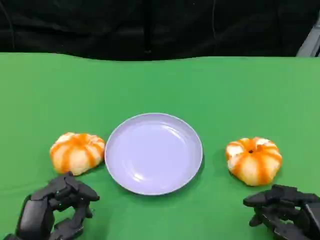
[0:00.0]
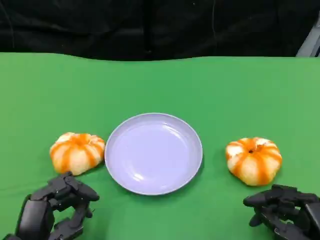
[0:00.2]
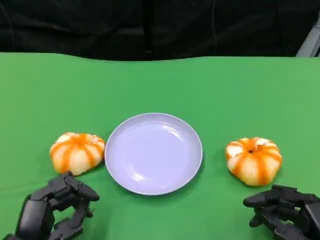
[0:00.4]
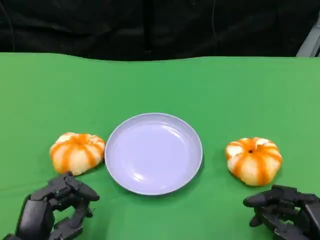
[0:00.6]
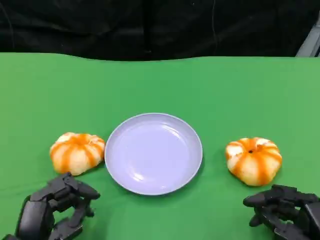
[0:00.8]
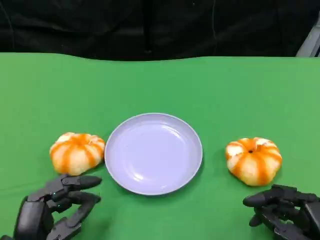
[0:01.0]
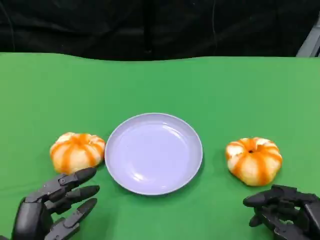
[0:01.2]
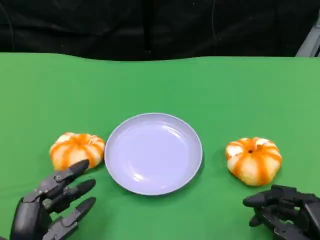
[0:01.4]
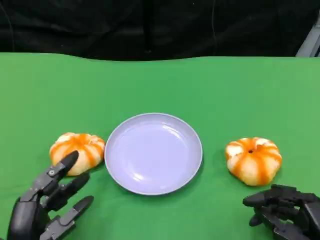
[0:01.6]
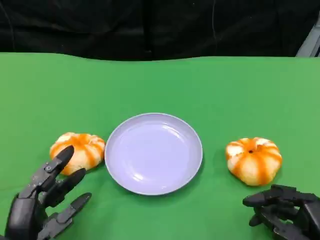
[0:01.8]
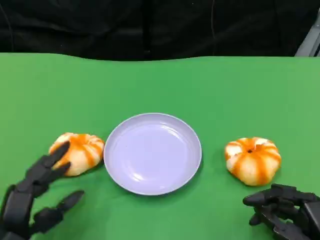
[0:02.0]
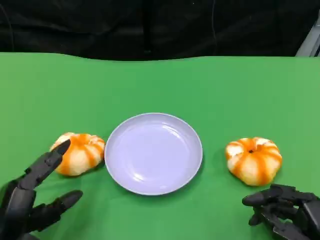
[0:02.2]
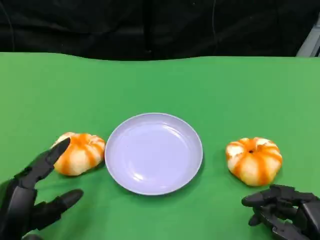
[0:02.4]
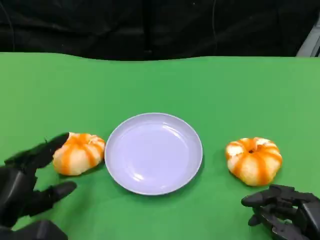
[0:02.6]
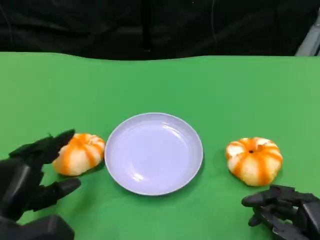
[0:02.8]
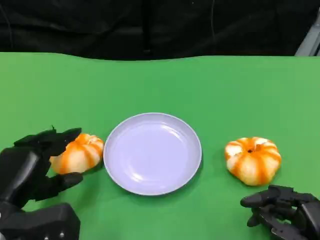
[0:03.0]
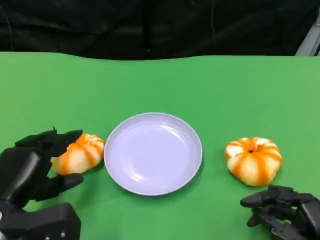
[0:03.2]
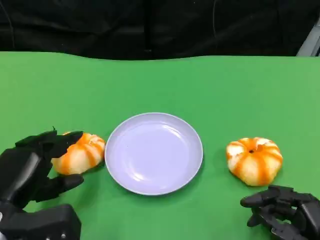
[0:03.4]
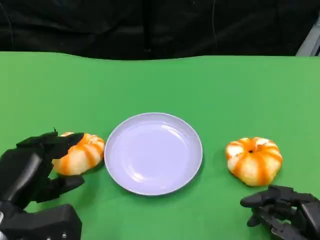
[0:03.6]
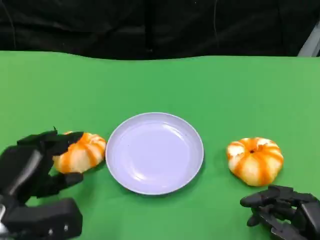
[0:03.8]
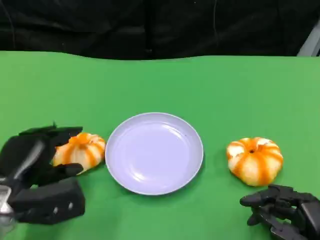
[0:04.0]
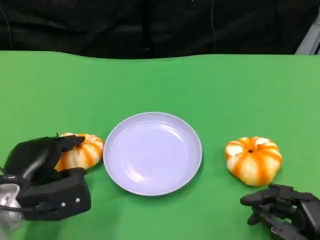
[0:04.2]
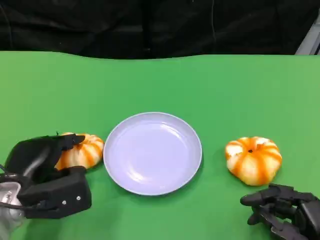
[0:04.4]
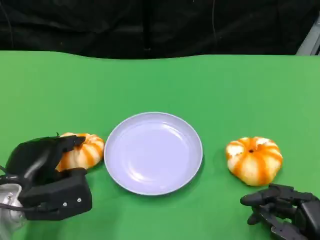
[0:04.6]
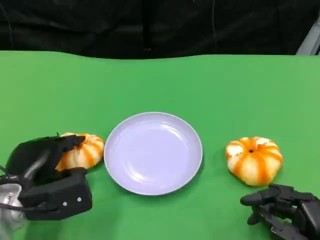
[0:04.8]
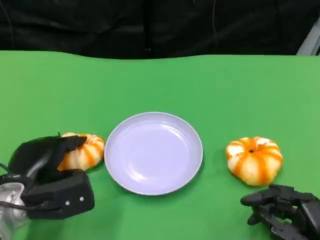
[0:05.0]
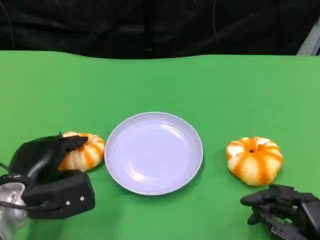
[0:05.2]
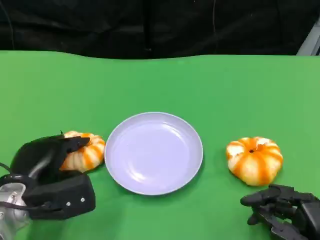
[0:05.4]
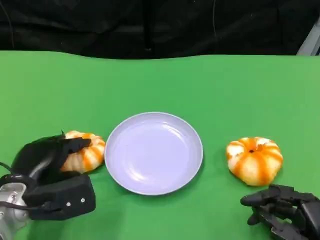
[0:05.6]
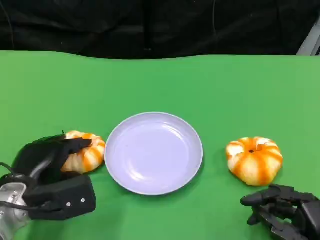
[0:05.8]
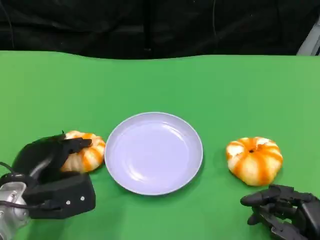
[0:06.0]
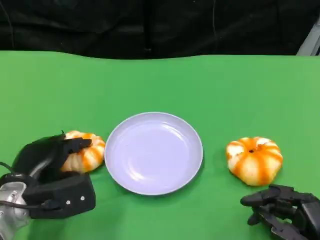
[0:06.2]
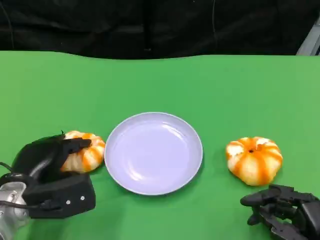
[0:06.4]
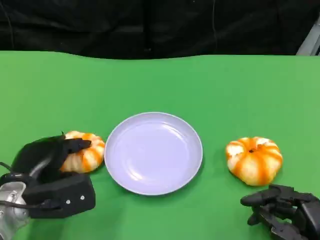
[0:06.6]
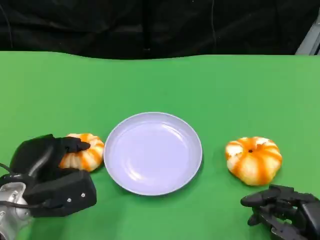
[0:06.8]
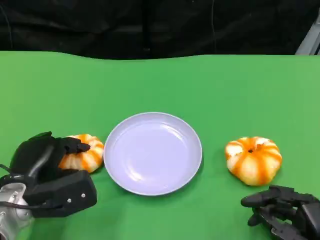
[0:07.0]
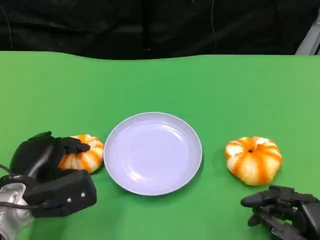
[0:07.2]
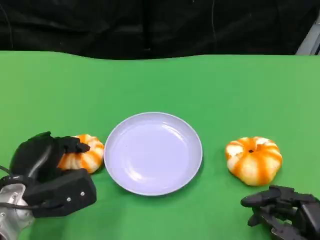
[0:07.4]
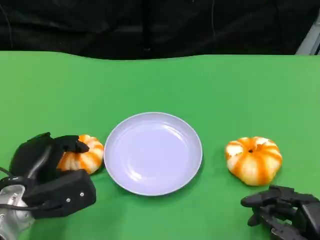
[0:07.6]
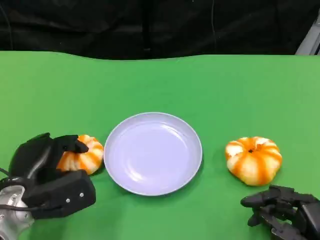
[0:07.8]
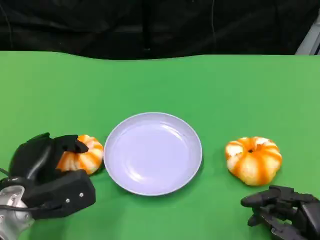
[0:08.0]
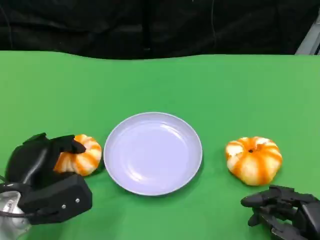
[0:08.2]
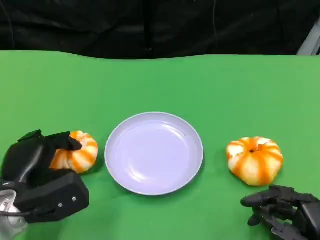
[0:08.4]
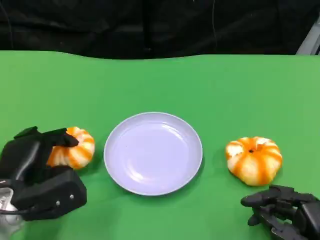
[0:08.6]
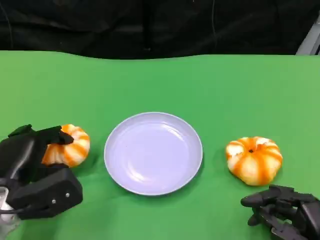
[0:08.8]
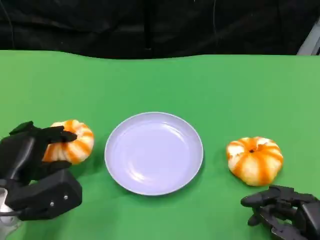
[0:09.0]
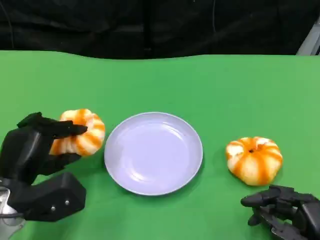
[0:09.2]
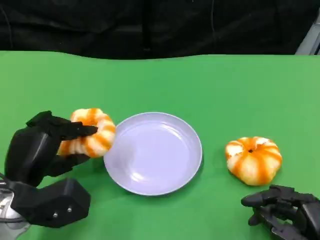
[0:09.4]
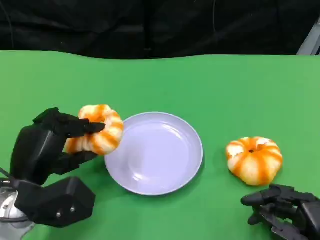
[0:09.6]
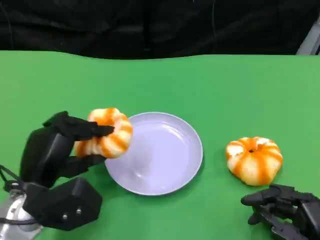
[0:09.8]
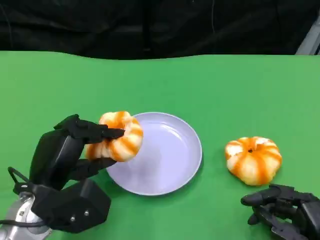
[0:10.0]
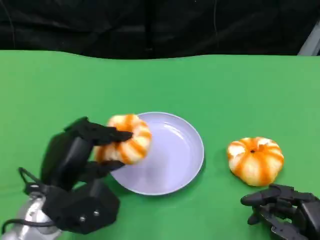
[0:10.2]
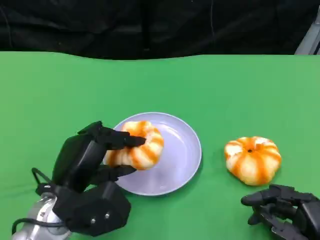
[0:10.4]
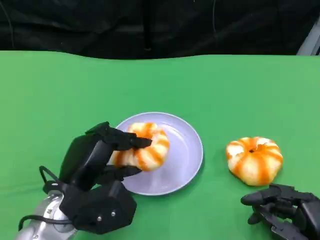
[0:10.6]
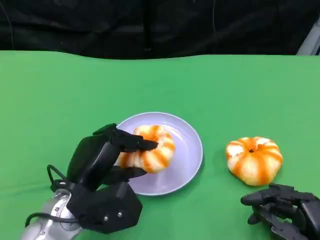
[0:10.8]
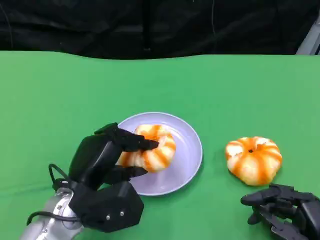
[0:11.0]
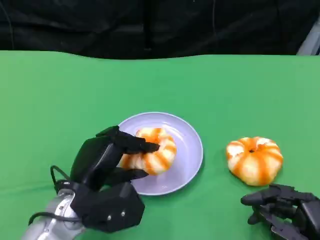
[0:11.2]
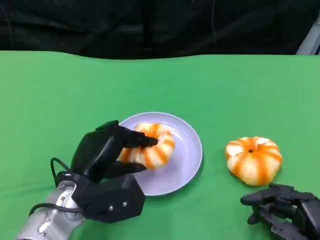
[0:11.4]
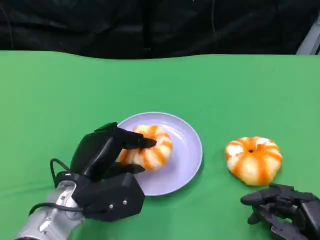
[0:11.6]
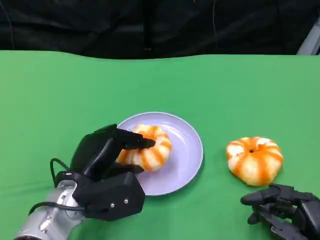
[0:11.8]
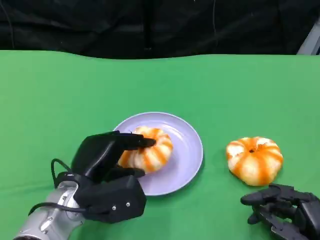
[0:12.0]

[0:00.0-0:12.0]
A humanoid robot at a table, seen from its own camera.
Task of the whole recording: Grasp the bread from the table and place it into the plate.
0:00.0 to 0:01.6: The hands move only a little.
0:01.6 to 0:03.0: The left hand heads forward, covering roughly 5 cm.
0:03.0 to 0:04.4: The hands make only small movements.
0:04.4 to 0:06.0: The two hands keep their place.
0:06.0 to 0:07.6: The hands move only a little.
0:07.6 to 0:09.0: The hands stay close to where they were, moving slightly.
0:09.0 to 0:10.4: The left hand moves to the right, approximately 5 cm.
0:10.4 to 0:12.0: There are only small adjustments of the hands.

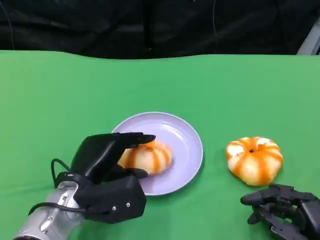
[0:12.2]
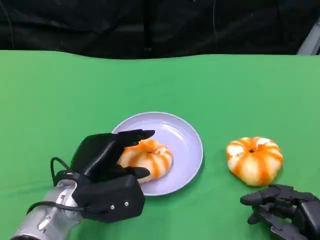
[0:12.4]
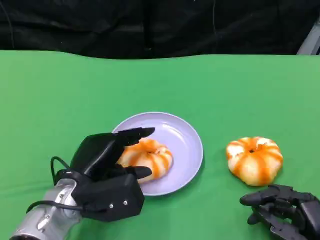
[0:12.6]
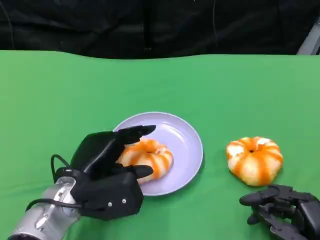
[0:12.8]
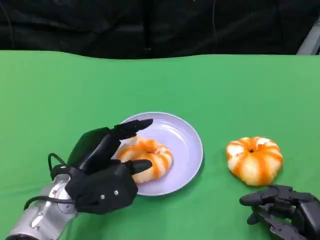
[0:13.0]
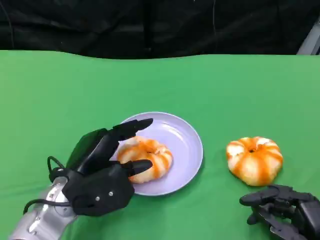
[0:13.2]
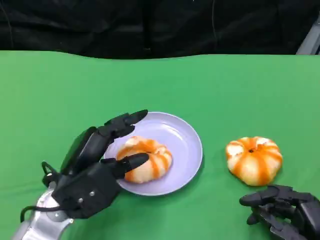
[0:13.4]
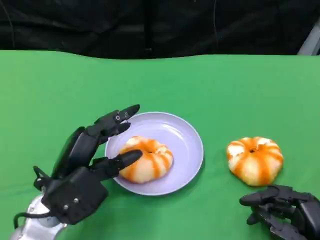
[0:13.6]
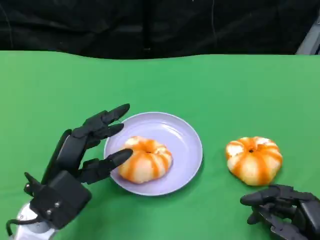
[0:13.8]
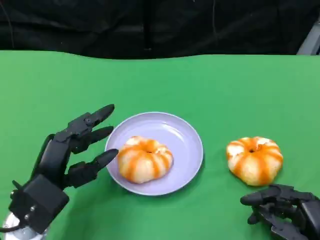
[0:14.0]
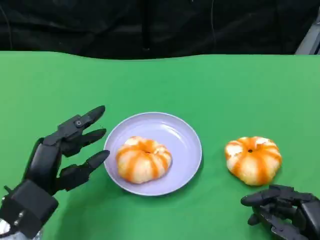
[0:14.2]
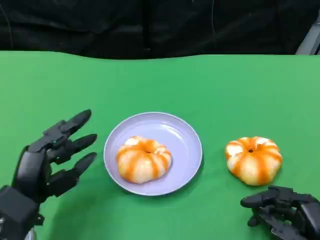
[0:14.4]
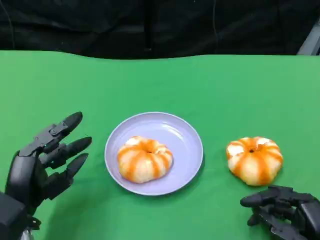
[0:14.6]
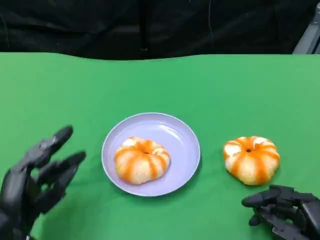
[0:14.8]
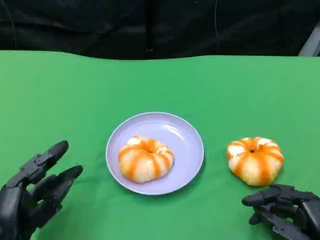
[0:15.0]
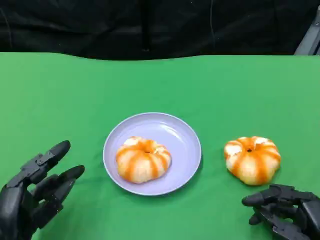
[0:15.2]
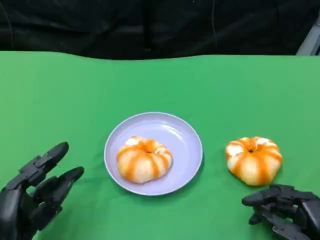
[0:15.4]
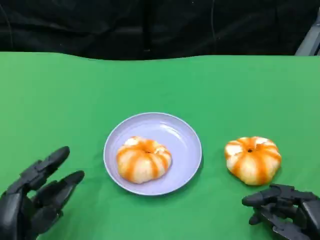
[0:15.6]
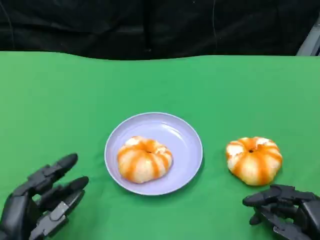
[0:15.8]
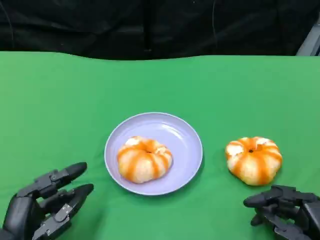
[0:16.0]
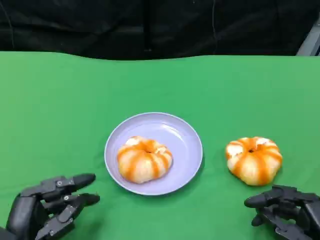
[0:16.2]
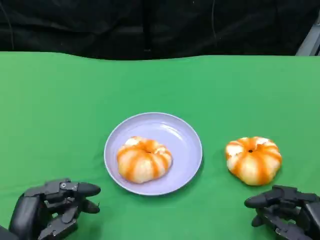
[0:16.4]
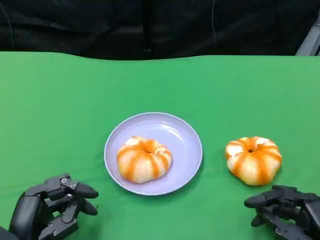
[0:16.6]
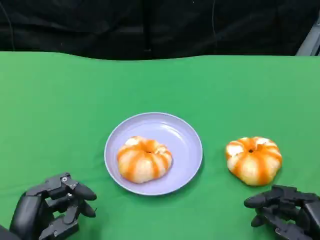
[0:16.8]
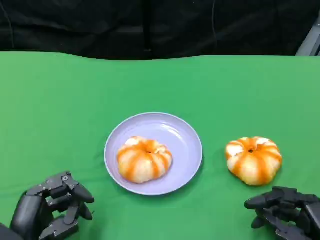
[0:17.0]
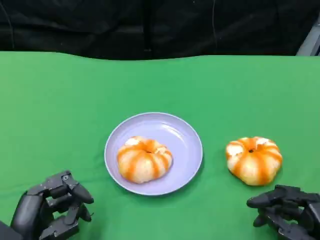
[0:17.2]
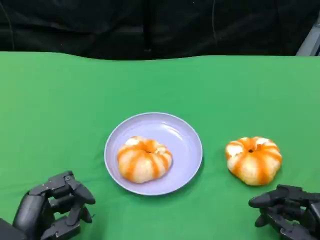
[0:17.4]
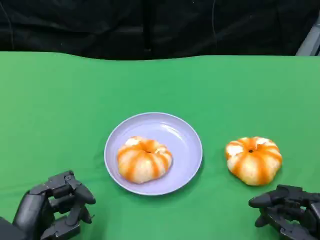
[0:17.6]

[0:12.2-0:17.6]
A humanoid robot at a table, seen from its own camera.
Task of the whole recording: Grasp the bread from the table and place it into the plate.
0:13.6 to 0:15.0: The left hand shifts roughly 10 cm backward and to the left.
0:15.0 to 0:16.2: There are only small adjustments of the hands.
0:16.2 to 0:17.6: Both hands stay put.

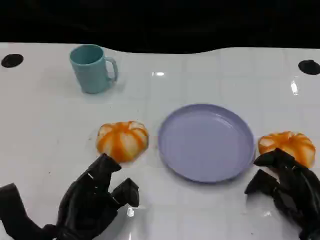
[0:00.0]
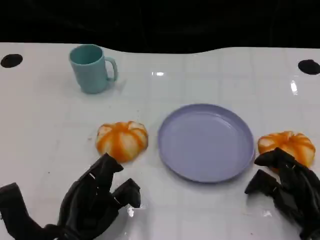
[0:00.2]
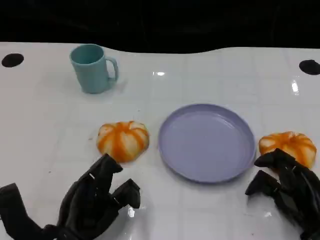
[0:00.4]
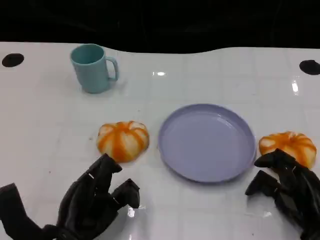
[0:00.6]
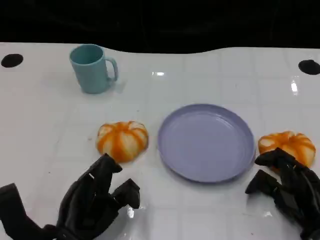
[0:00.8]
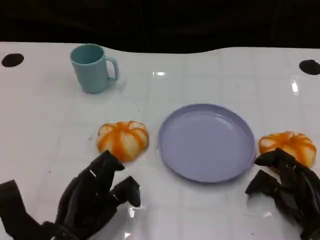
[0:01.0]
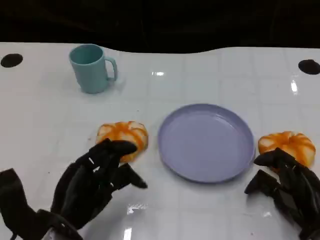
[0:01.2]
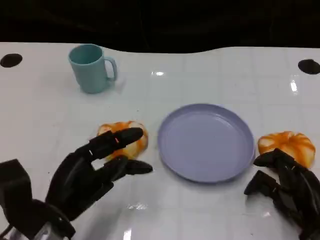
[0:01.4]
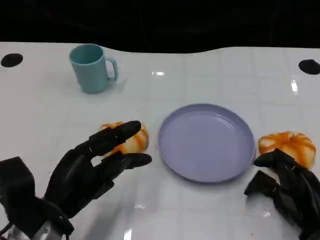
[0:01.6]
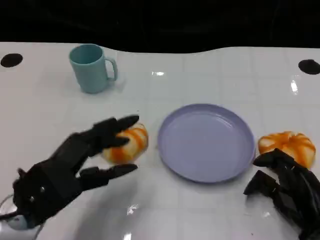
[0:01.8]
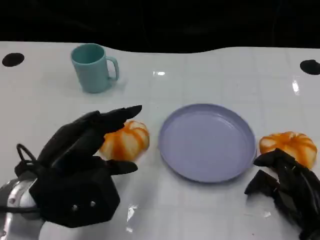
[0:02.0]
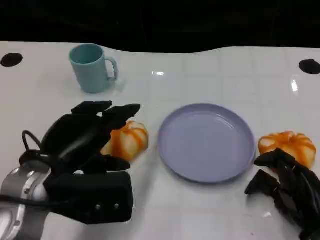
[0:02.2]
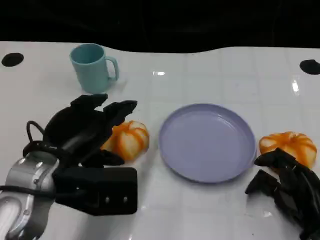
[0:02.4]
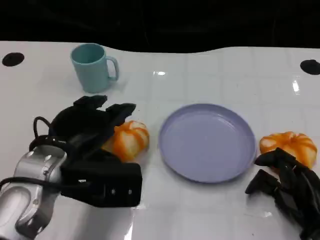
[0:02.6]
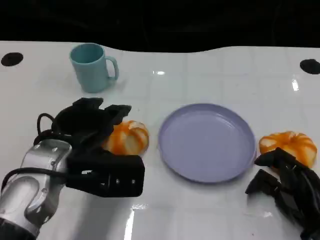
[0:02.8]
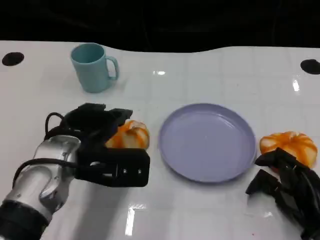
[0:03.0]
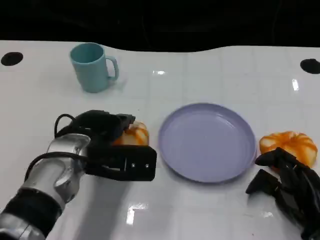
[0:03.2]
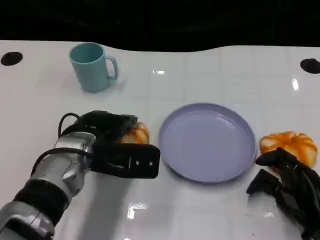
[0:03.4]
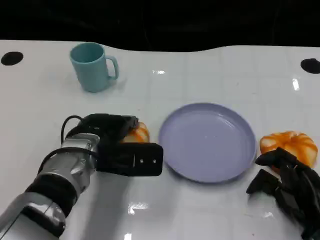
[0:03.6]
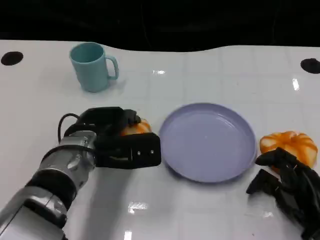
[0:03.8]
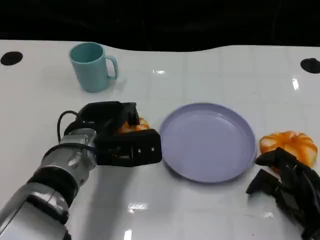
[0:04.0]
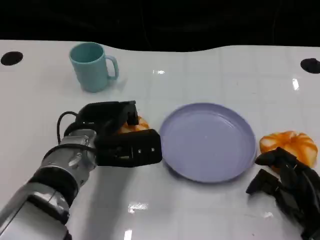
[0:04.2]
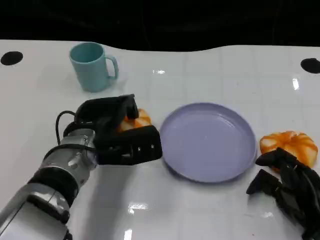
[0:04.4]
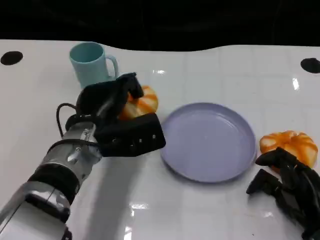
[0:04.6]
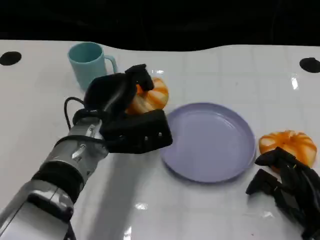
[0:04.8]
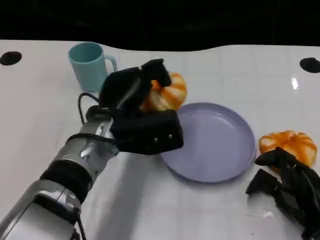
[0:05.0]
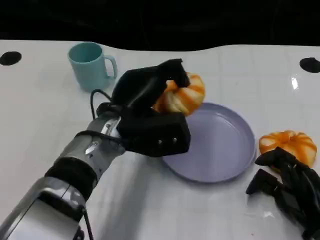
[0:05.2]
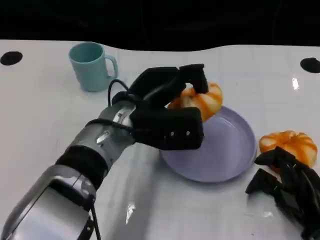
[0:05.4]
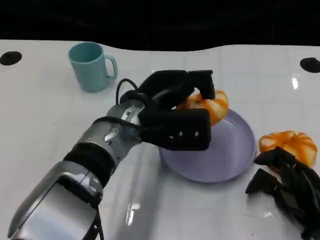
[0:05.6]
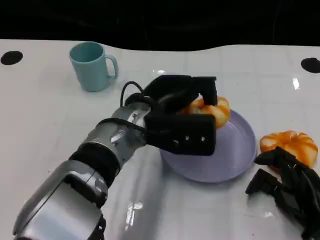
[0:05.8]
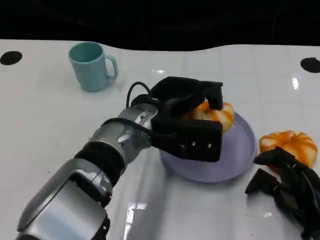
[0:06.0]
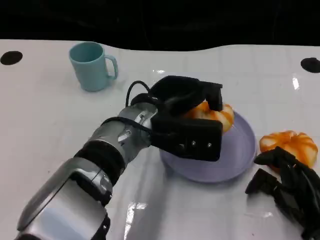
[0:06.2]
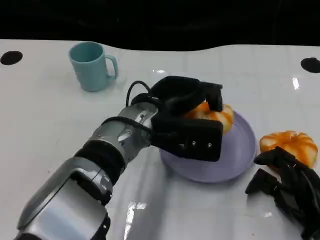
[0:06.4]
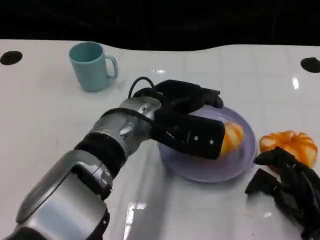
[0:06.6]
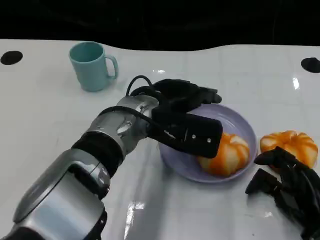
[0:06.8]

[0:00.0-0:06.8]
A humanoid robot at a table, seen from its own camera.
Task of the whole recording: Grasp the bread from the table and place it into the plate.
0:01.4 to 0:02.8: The left hand shifts approximately 10 cm forward and upward.
0:02.8 to 0:04.0: The left hand shifts by some 5 cm.
0:04.0 to 0:05.4: The left hand heads to the right and upward, covering about 10 cm.
